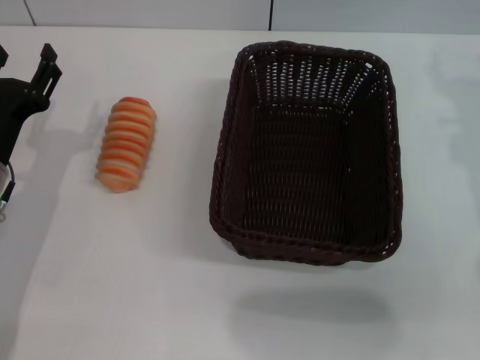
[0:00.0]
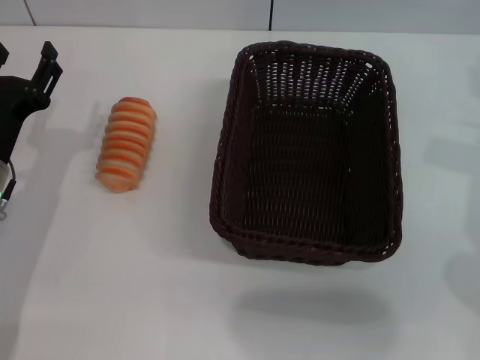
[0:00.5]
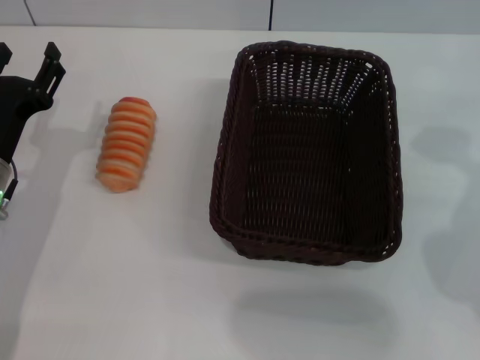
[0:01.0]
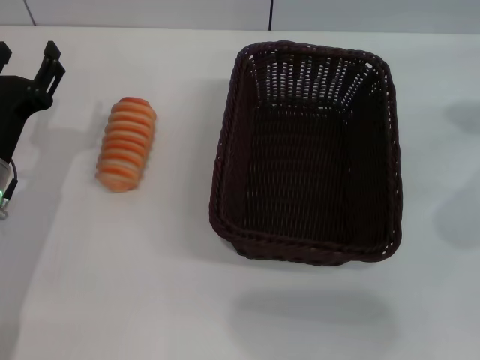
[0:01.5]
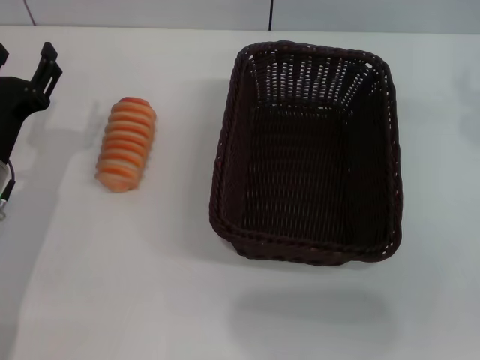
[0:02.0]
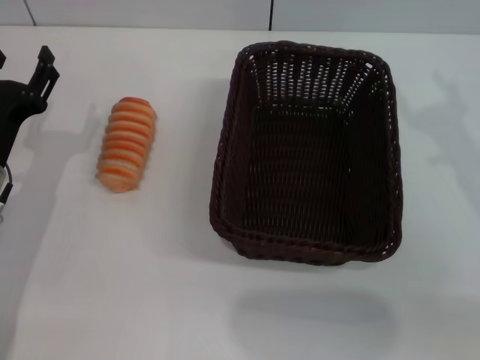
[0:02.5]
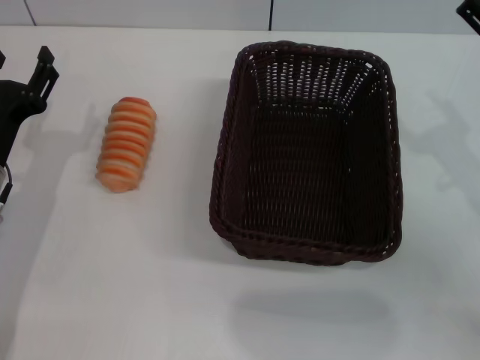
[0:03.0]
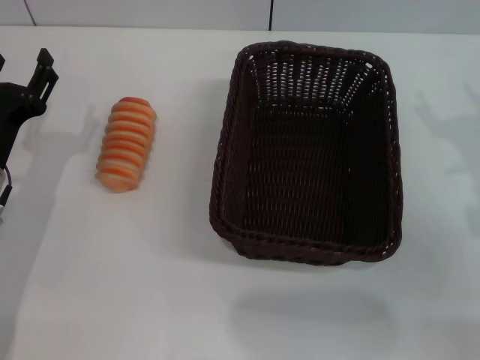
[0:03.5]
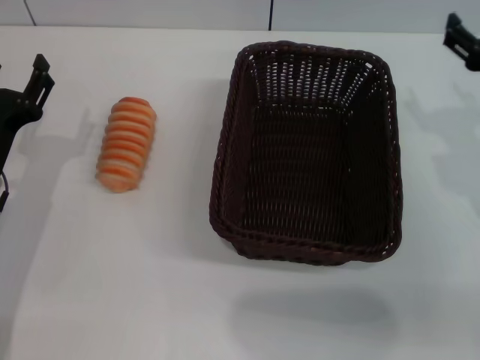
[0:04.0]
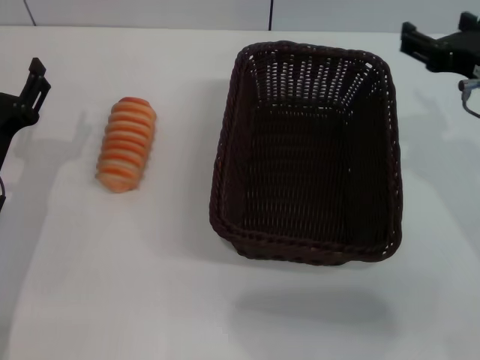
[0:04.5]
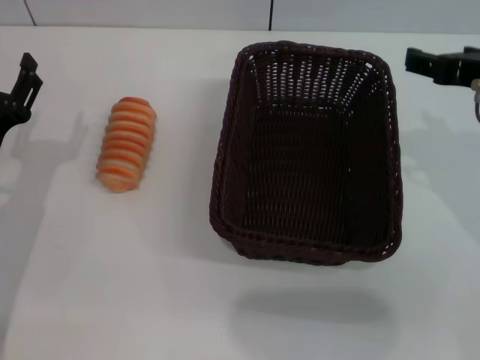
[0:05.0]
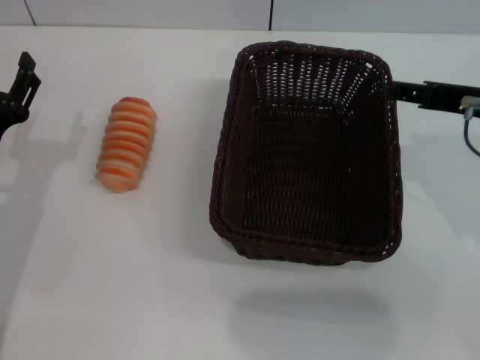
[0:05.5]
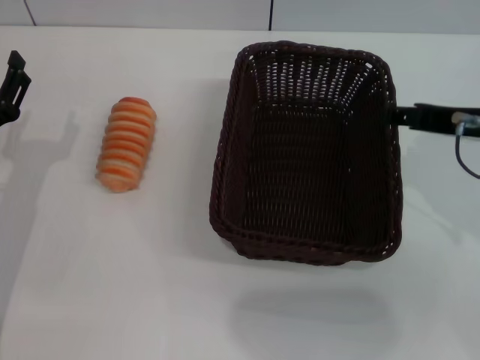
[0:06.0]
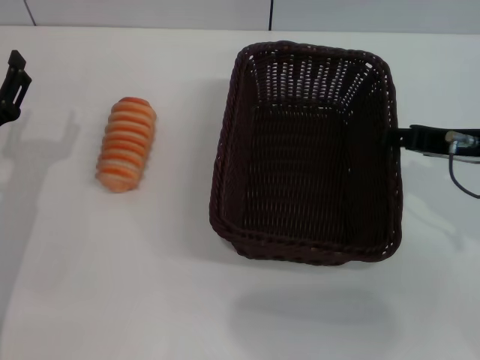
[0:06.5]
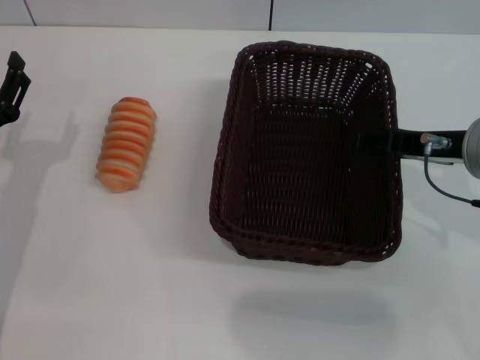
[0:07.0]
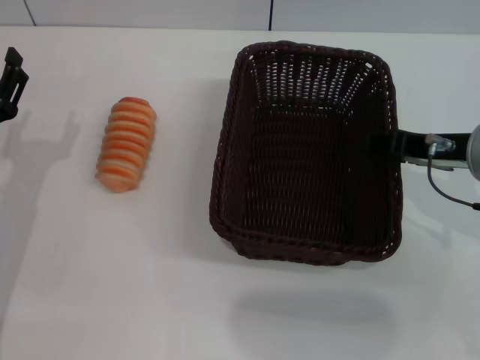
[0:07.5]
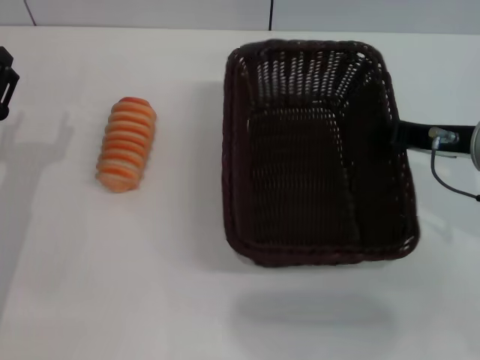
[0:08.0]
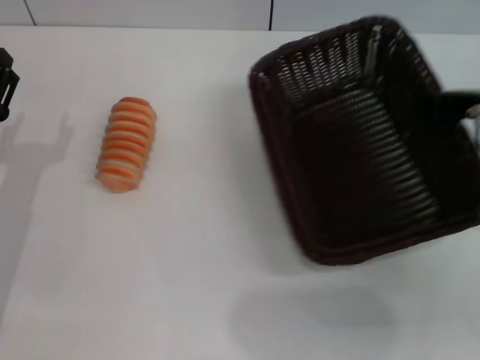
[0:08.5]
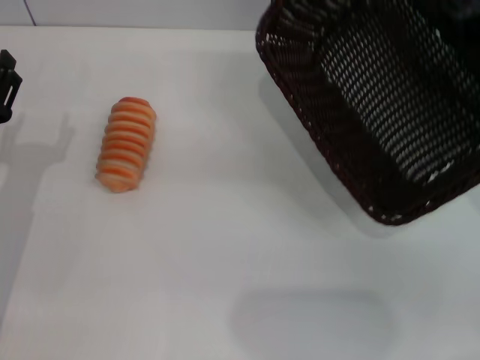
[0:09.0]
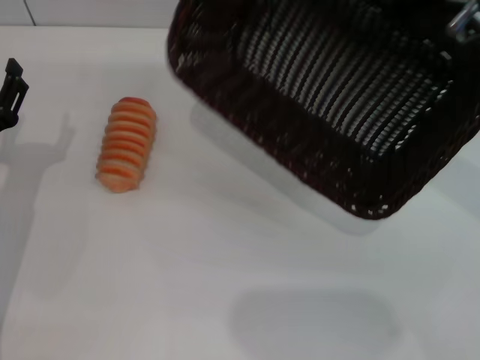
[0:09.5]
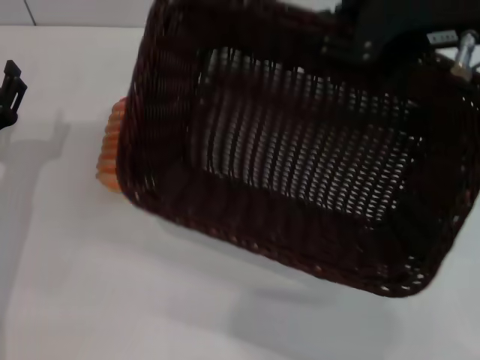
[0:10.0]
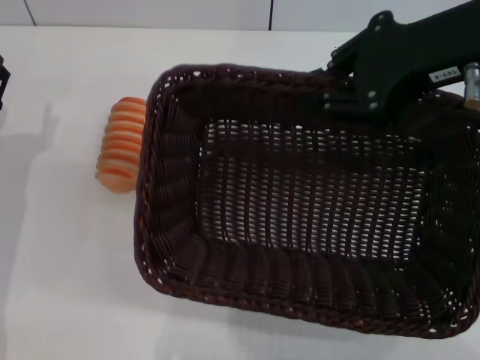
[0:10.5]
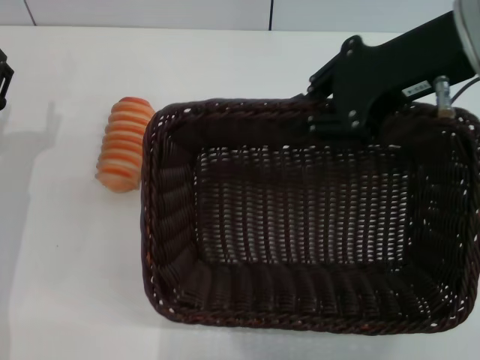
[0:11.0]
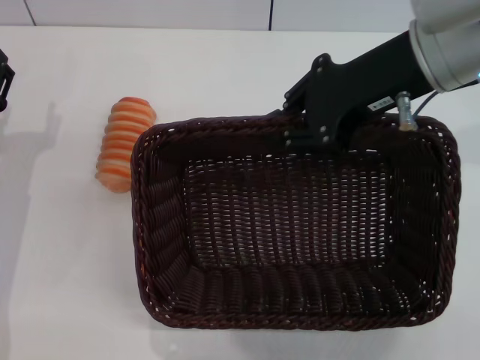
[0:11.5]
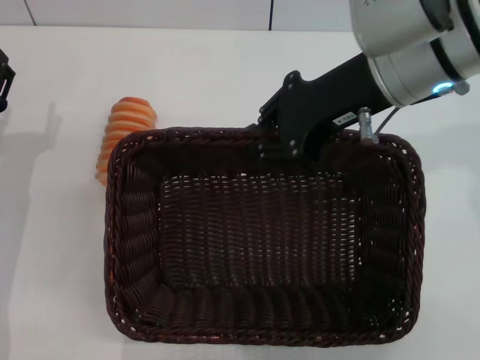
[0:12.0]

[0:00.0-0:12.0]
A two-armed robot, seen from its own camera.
Step, 0:00.0 to 0:08.5: Pick up the dark basket with the right gripper.
0:02.0 to 0:04.0: The right gripper travels downward by some 5 cm.
0:04.0 to 0:06.0: The right gripper shifts by approximately 5 cm.
0:06.0 to 0:08.0: The right gripper closes.
0:08.0 to 0:10.0: The right gripper is displaced upward by about 15 cm.
0:10.0 to 0:12.0: The right gripper travels downward and to the left by some 10 cm.

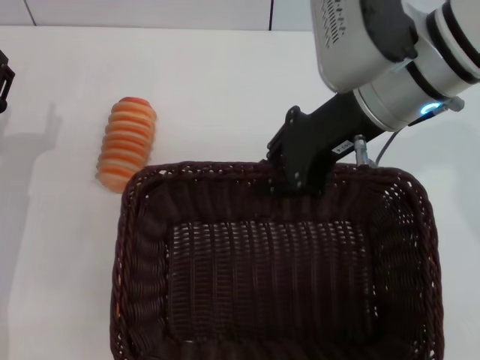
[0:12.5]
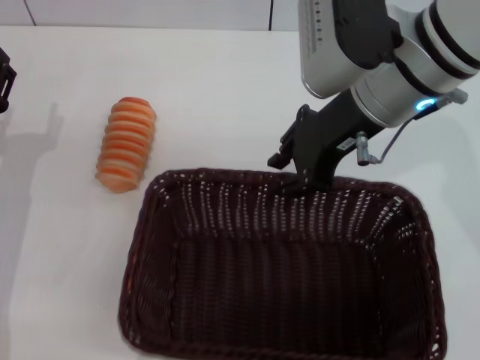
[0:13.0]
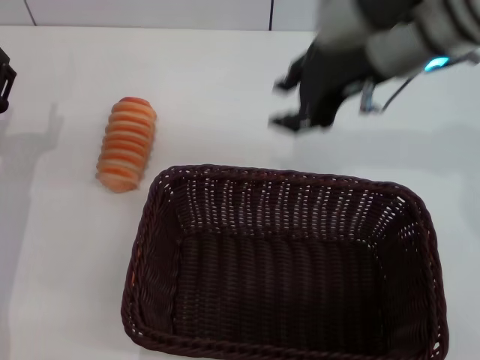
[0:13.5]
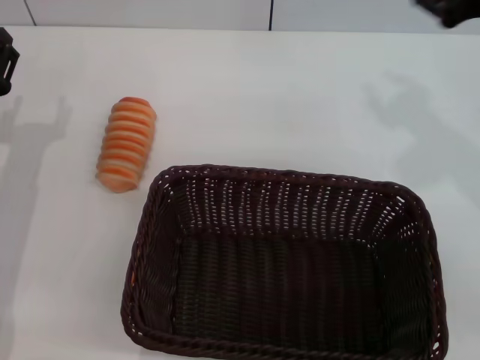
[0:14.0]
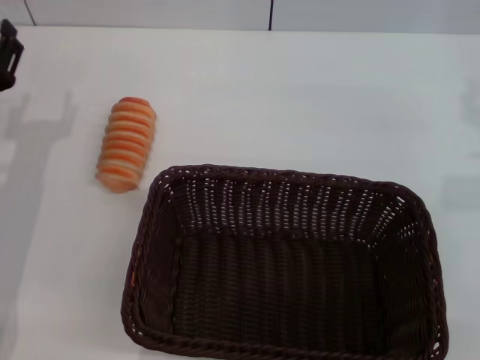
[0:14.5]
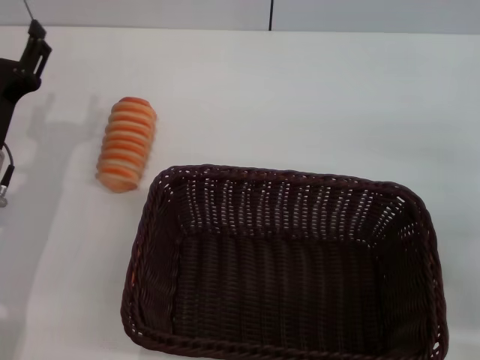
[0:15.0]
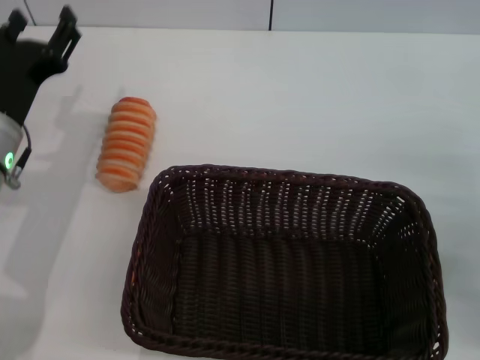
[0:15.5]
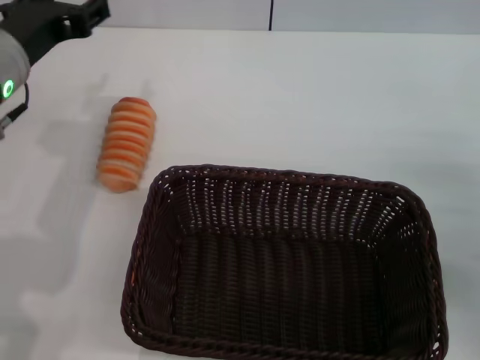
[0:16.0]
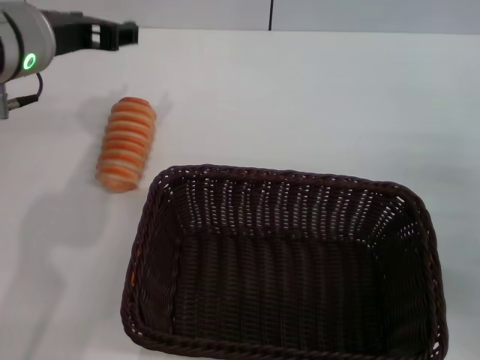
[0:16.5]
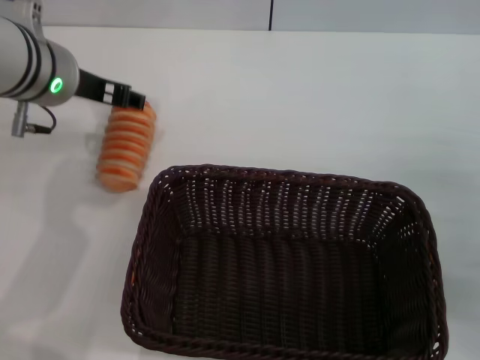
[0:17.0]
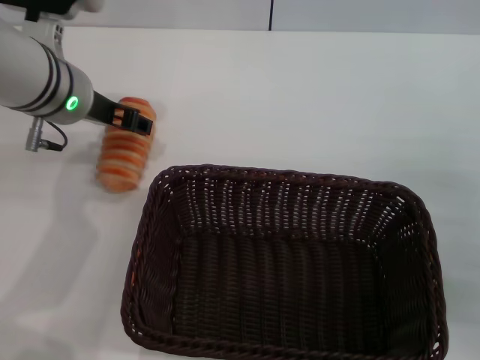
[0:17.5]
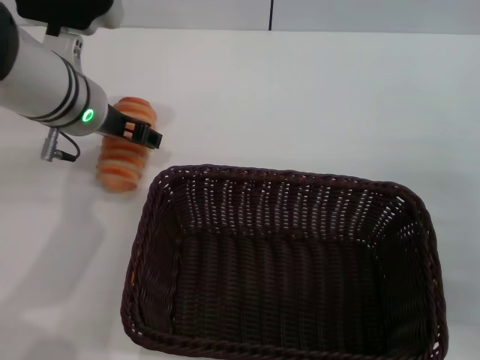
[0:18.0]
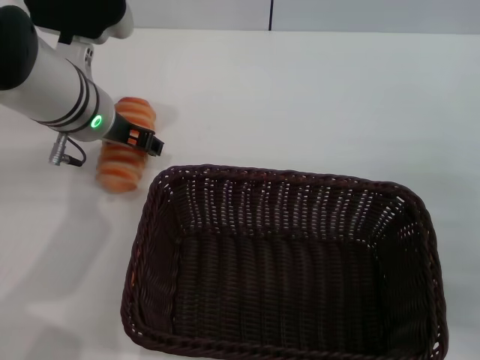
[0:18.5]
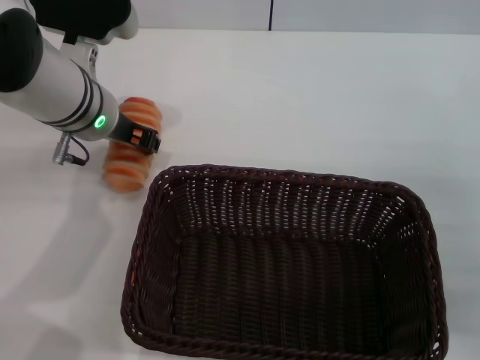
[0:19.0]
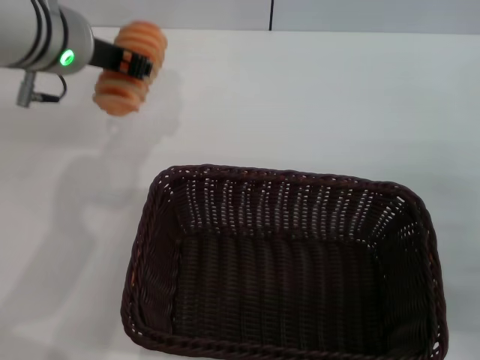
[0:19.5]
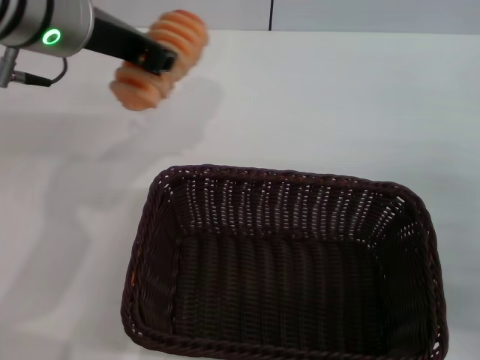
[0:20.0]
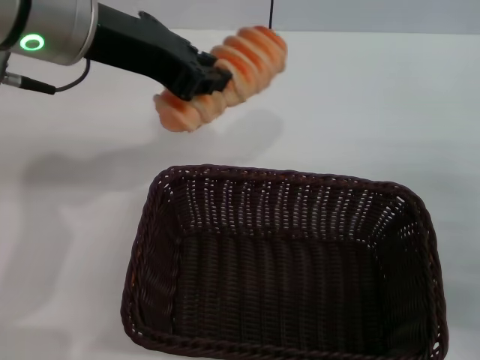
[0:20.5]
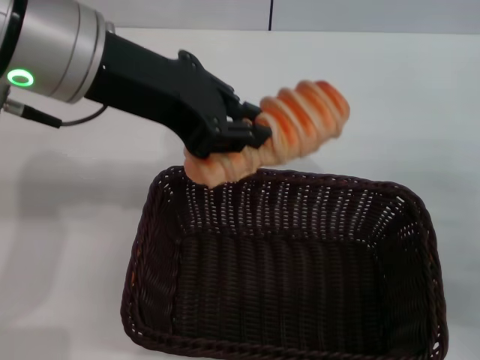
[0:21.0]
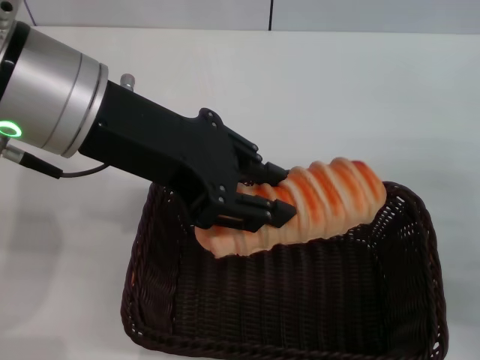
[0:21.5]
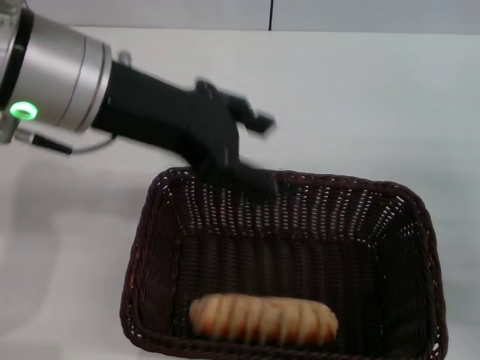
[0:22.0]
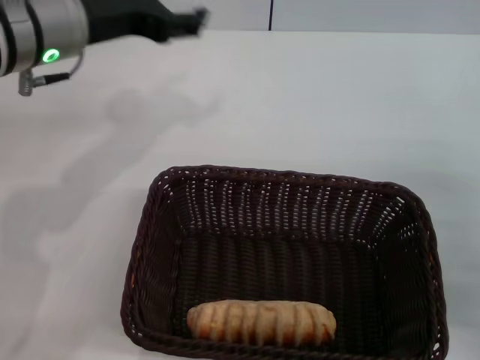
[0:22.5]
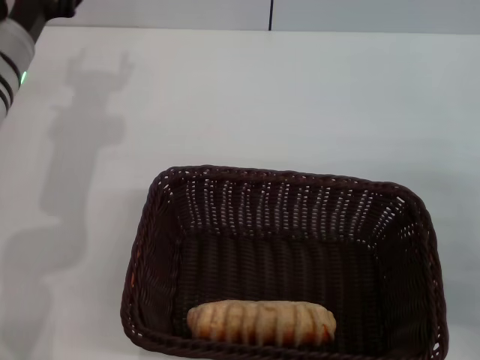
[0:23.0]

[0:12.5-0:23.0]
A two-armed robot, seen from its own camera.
Step, 0:14.0 to 0:19.5: Pick up the long bread with the left gripper.
Step, 0:20.0 to 0:22.0: Place the long bread into the dark basket with the left gripper.
0:12.5 to 0:14.5: The right gripper moves to the right and backward, about 15 cm, and opens up.
0:14.5 to 0:16.5: The left gripper is displaced upward and to the right by some 20 cm. Meanwhile the right gripper goes some 10 cm downward.
0:16.5 to 0:19.0: The left gripper shifts about 10 cm downward, and closes up.
0:19.0 to 0:21.0: The left gripper heads upward and backward, covering some 15 cm, and closes its fingers.
0:21.0 to 0:23.0: The left gripper is displaced downward, to the left and forward by approximately 20 cm, and opens up.

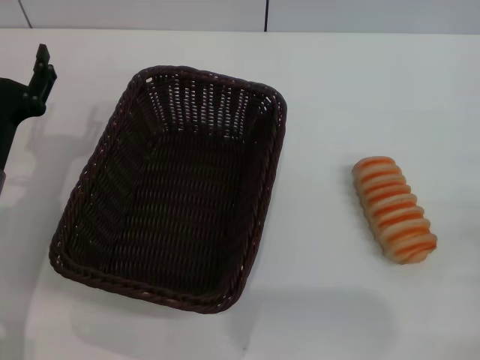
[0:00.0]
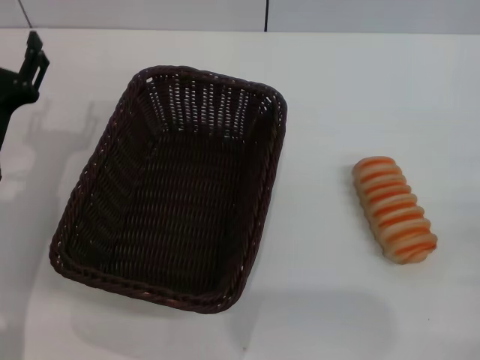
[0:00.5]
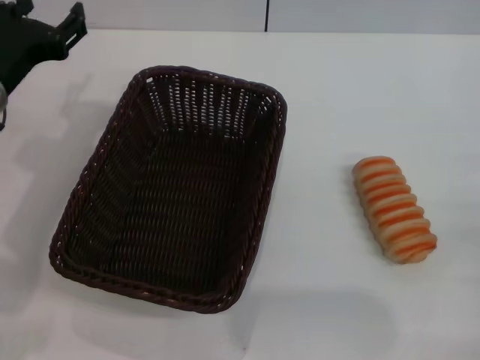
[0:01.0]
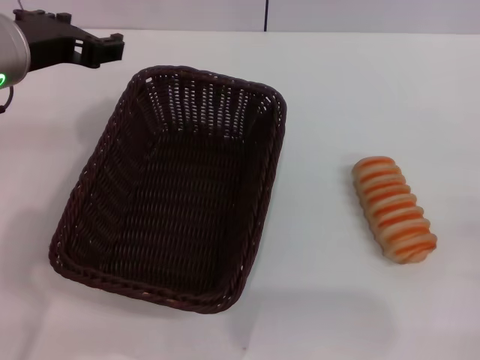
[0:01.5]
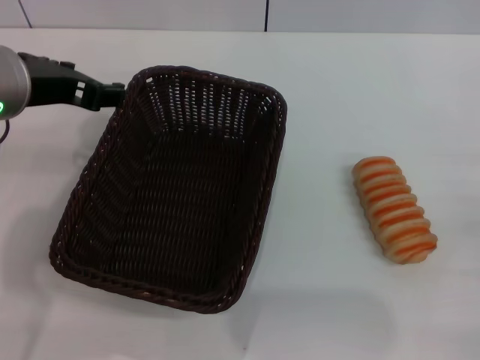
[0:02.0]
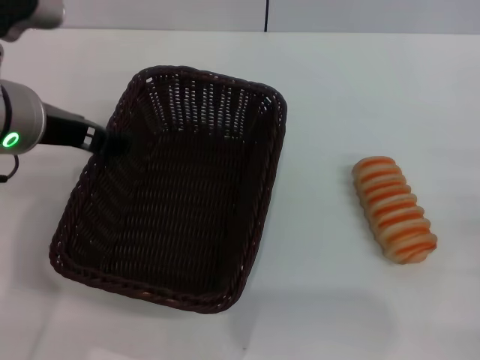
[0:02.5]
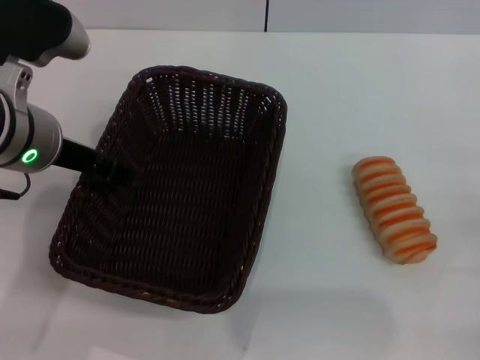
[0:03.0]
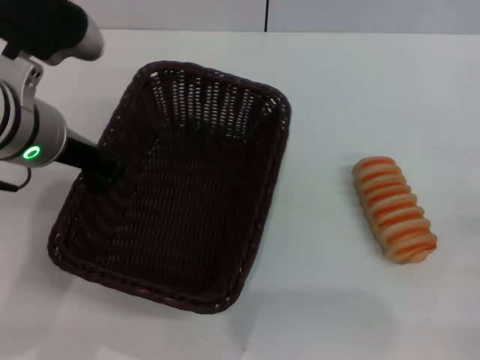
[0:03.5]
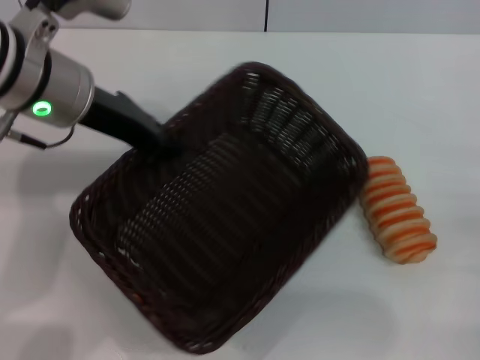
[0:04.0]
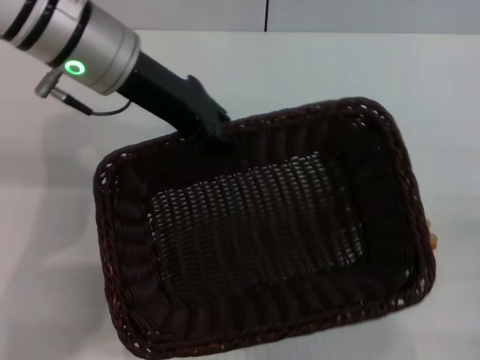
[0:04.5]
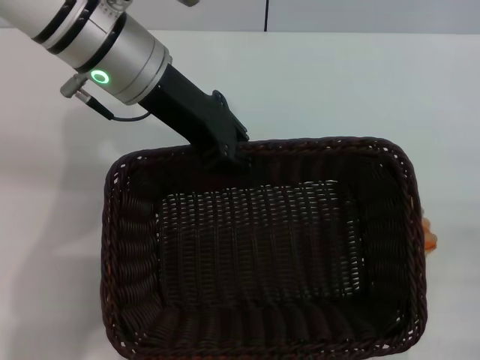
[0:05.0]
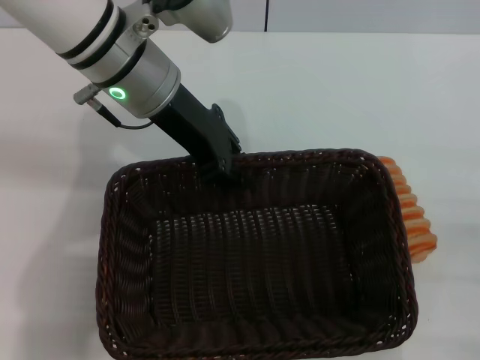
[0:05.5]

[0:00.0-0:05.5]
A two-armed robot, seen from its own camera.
Step, 0:00.0 to 0:03.5: Pick up the dark basket with the left gripper.
0:00.0 to 0:02.0: The left gripper goes approximately 15 cm upward.
0:02.0 to 0:03.5: The left gripper closes its fingers.
0:03.5 to 0:05.5: The left gripper heads forward and to the right, covering approximately 10 cm.
